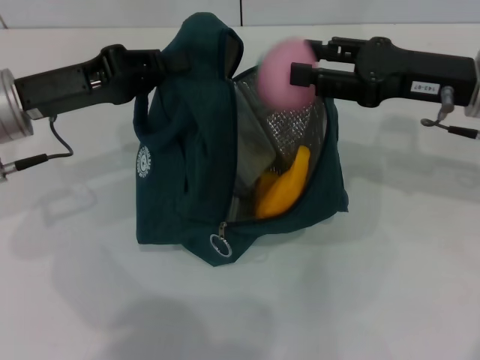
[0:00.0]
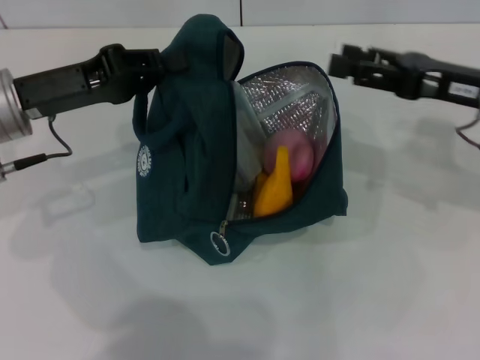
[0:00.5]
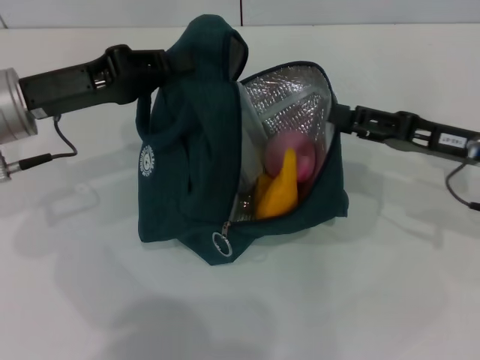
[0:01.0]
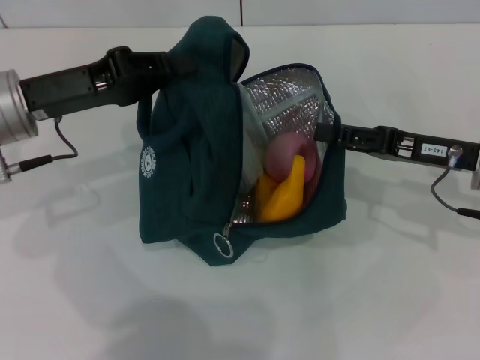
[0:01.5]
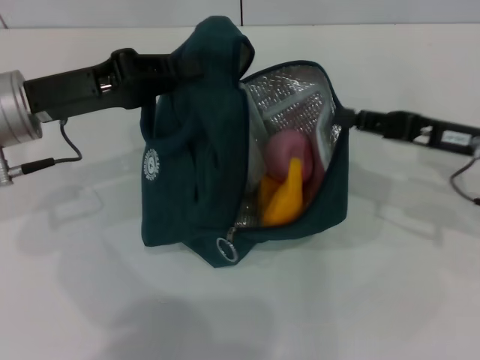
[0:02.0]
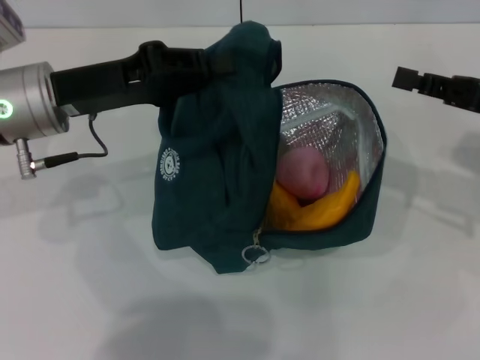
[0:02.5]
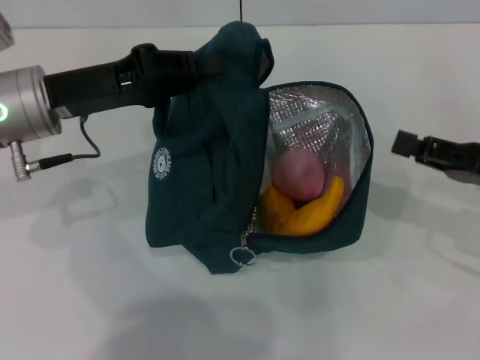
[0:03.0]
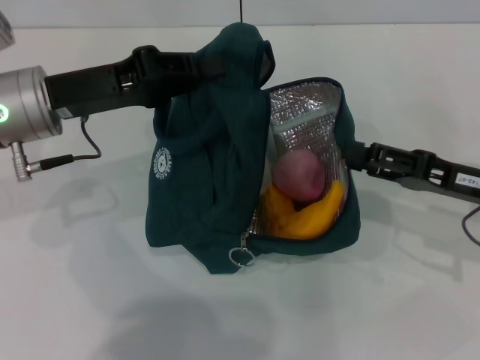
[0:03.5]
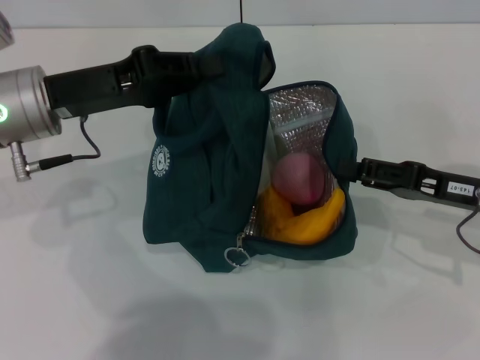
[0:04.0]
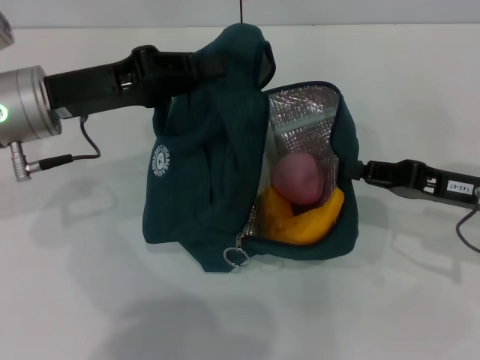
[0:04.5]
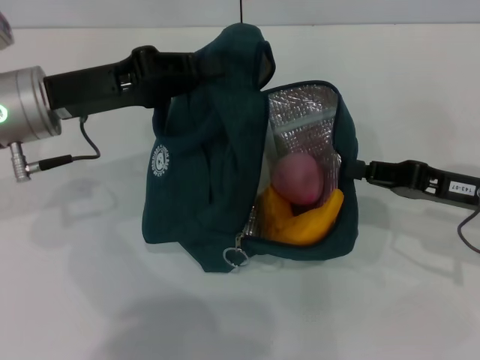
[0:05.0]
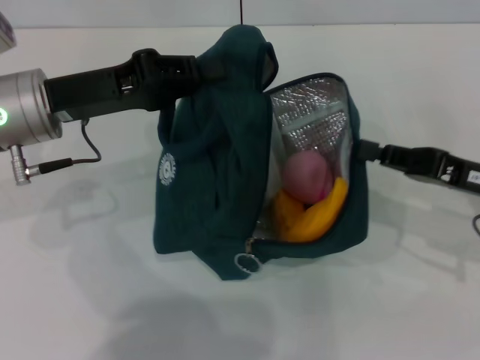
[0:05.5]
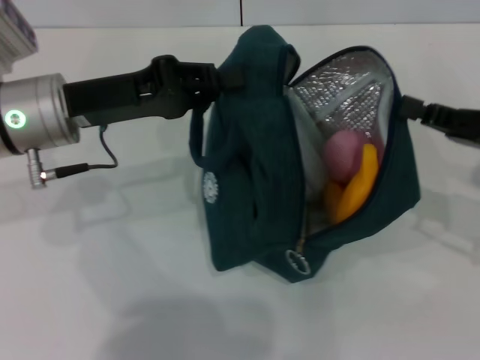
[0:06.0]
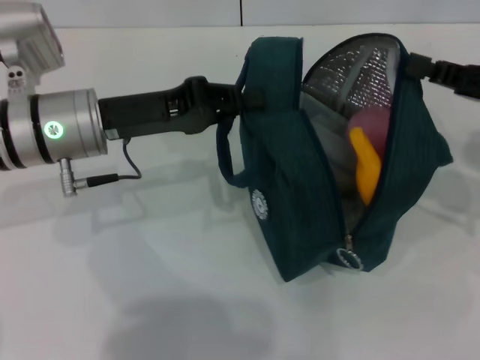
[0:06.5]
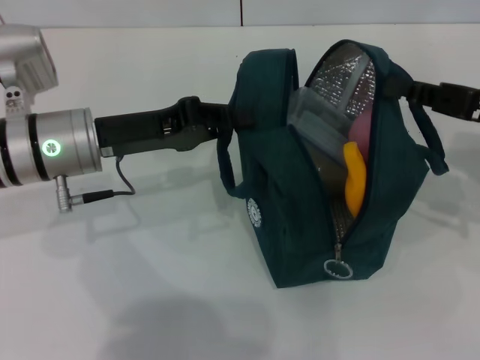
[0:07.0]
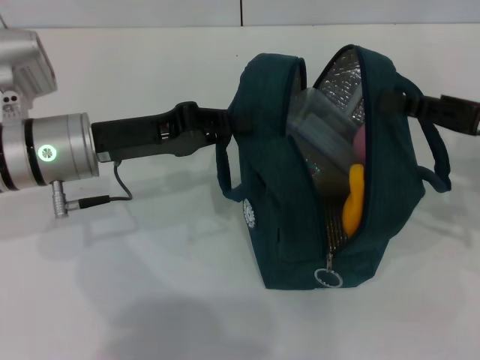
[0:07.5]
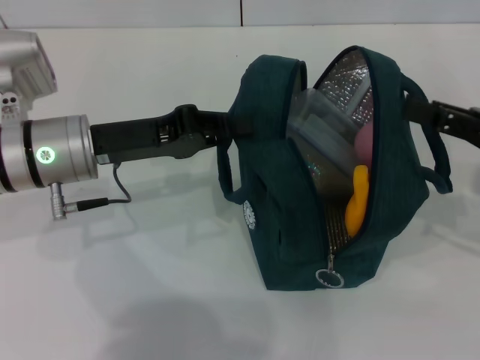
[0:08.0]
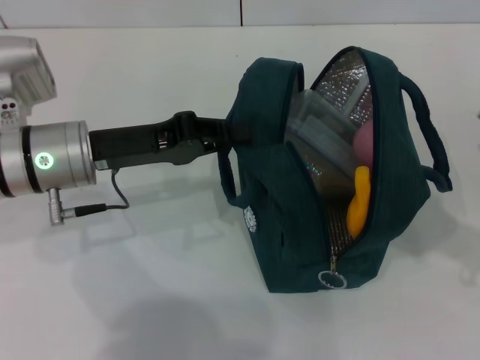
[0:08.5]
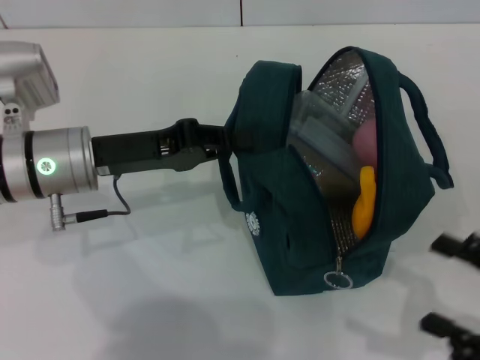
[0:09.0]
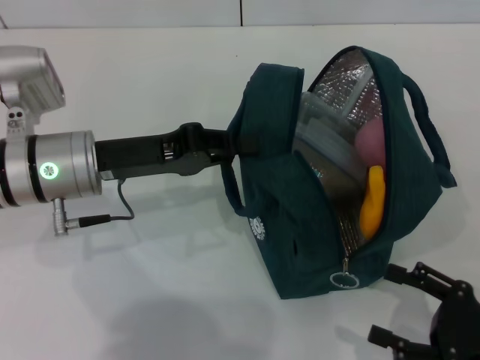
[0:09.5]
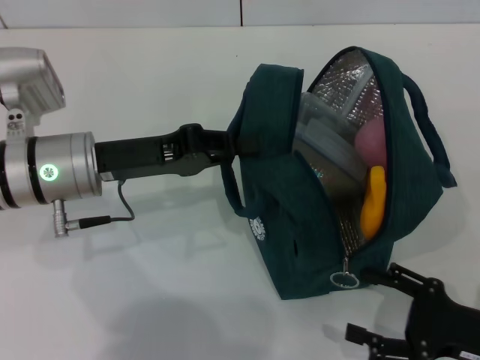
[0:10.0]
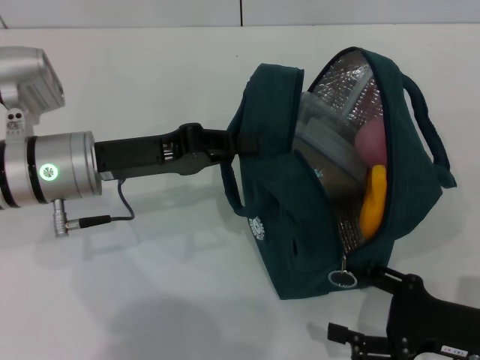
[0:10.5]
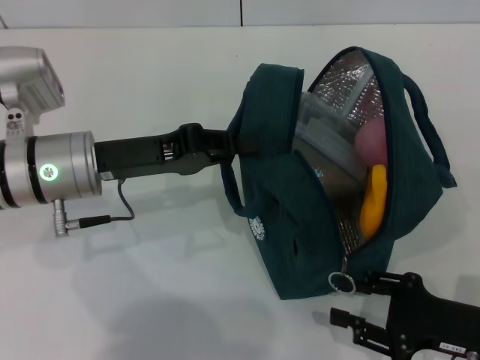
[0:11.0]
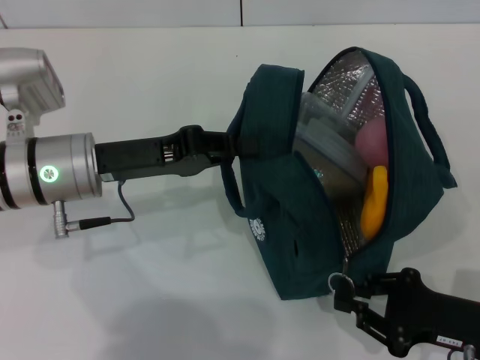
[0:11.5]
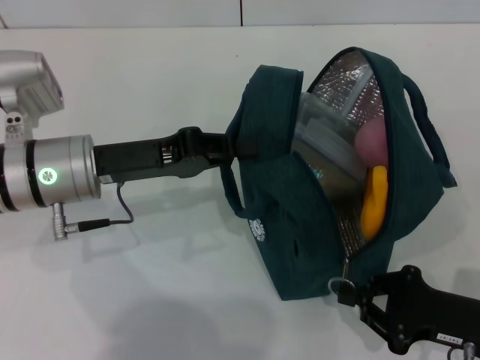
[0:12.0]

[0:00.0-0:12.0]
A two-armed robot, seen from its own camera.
Step, 0:00.5 to 0:08.0: Zip up the lunch bag with your right hand.
0:00.0 to 0:02.0: The right gripper ends up some 5 cm from where it was, and opens, then closes again.
0:02.0 to 0:04.0: The right gripper opens.
0:04.0 to 0:06.0: The right gripper closes up.
0:06.0 to 0:08.0: The right gripper opens up.
0:08.0 to 0:10.0: The right gripper is displaced downward and backward by approximately 15 cm, and opens up.
0:10.0 to 0:12.0: The right gripper closes.

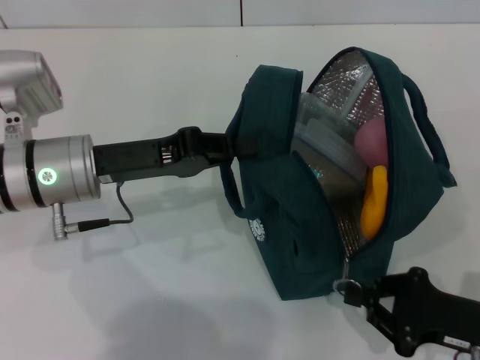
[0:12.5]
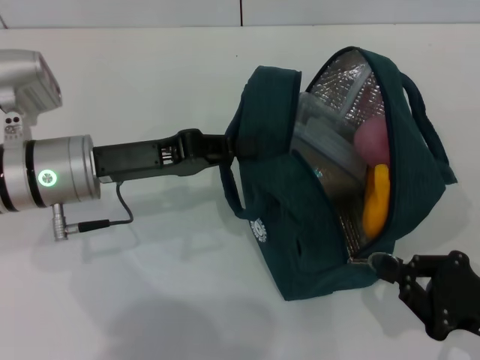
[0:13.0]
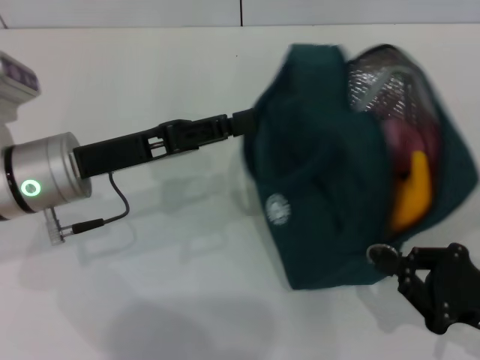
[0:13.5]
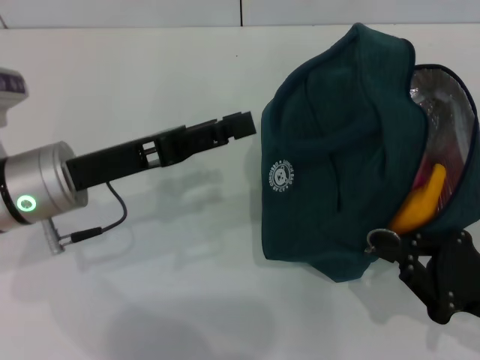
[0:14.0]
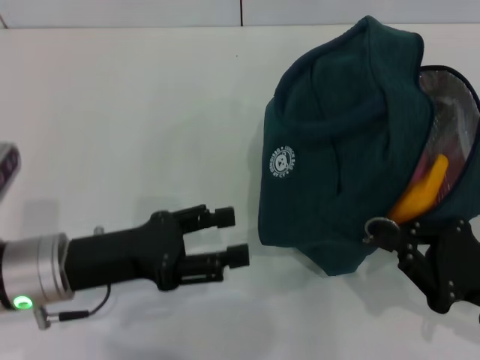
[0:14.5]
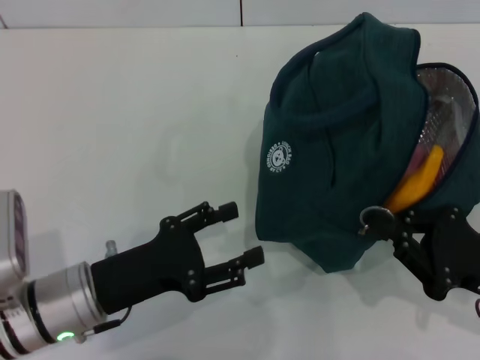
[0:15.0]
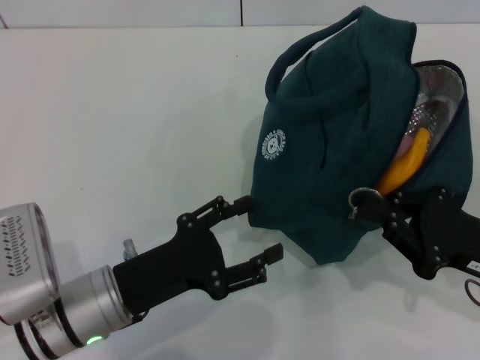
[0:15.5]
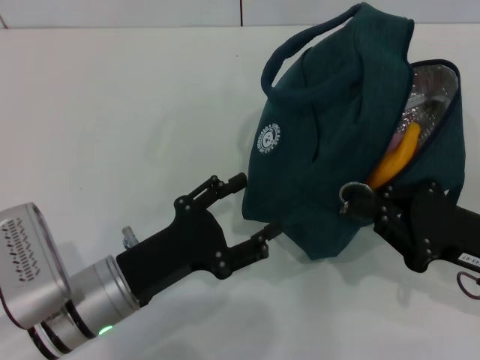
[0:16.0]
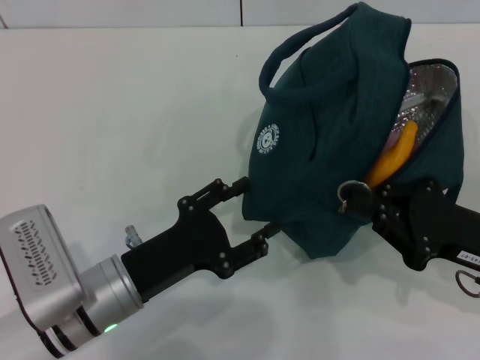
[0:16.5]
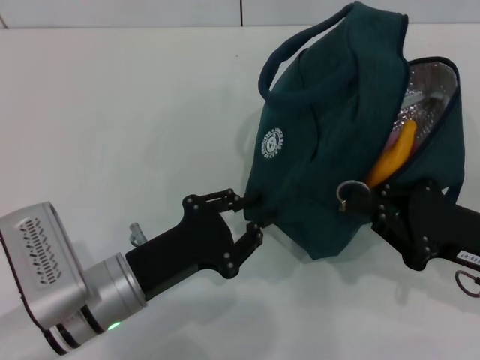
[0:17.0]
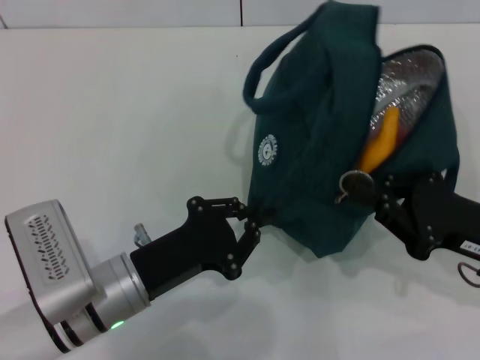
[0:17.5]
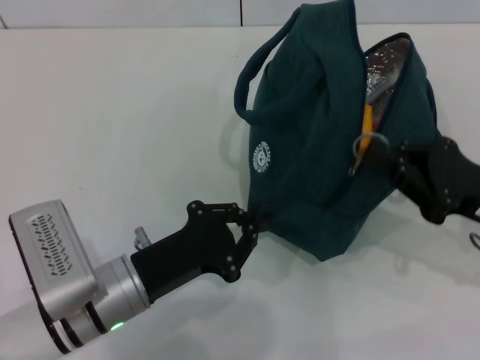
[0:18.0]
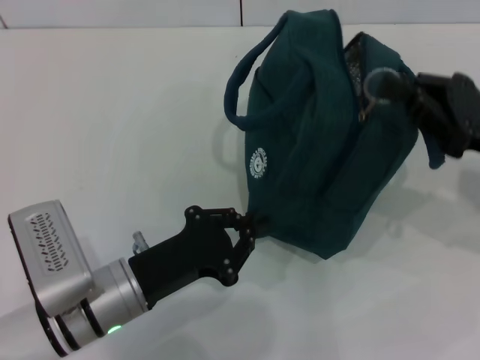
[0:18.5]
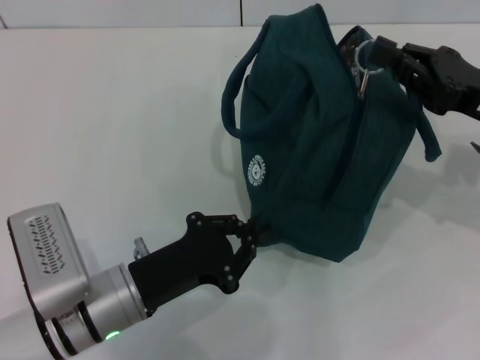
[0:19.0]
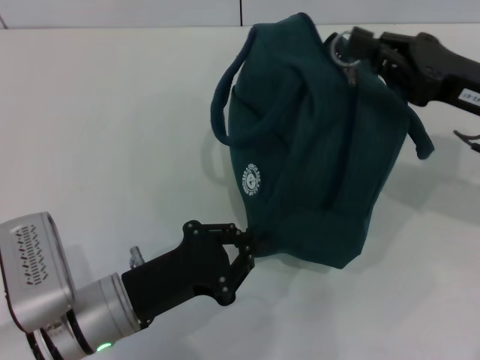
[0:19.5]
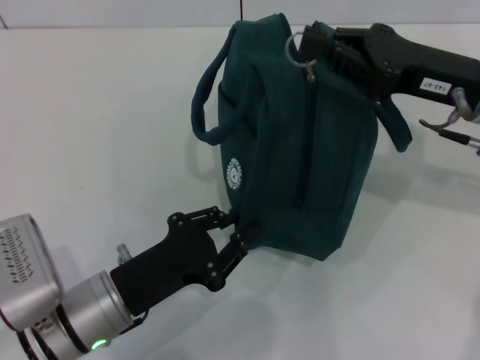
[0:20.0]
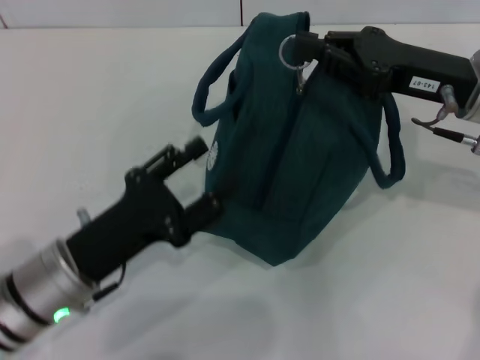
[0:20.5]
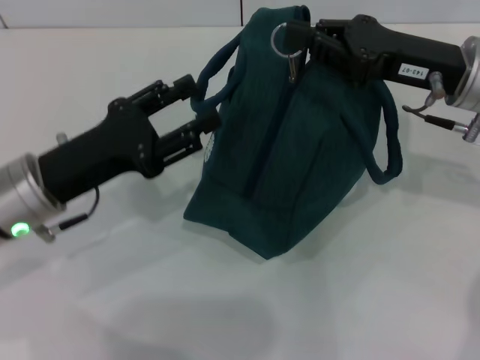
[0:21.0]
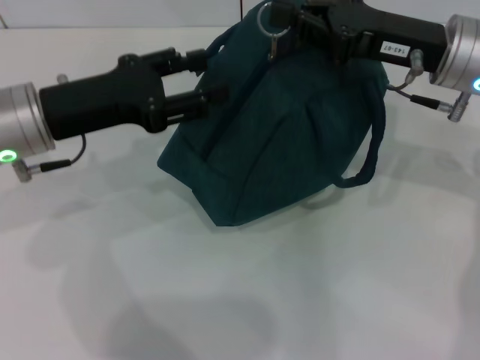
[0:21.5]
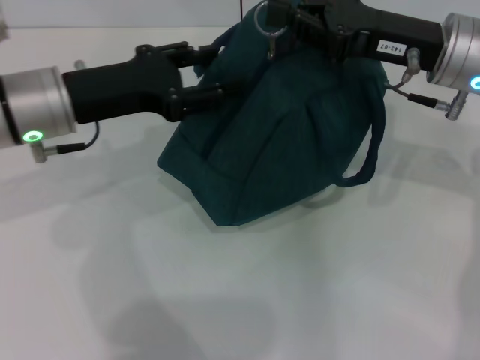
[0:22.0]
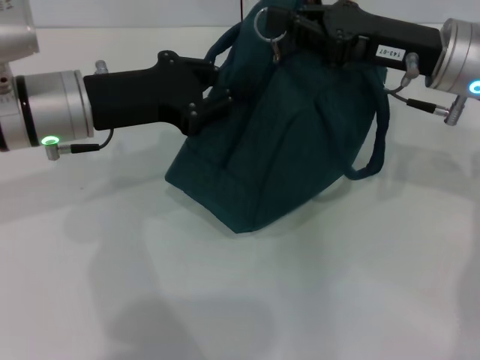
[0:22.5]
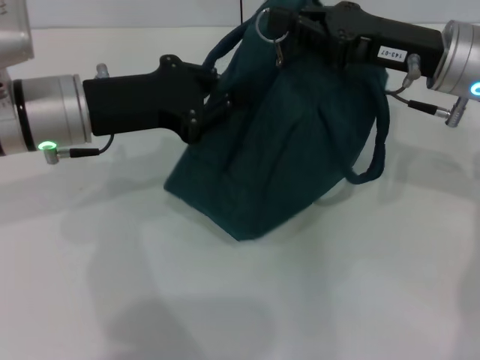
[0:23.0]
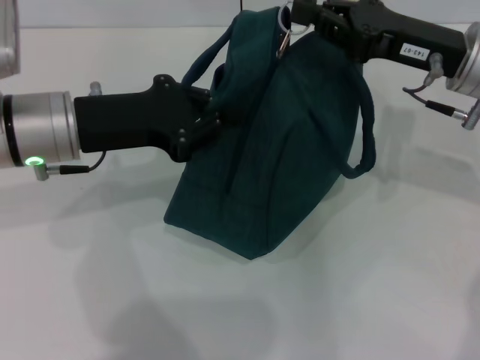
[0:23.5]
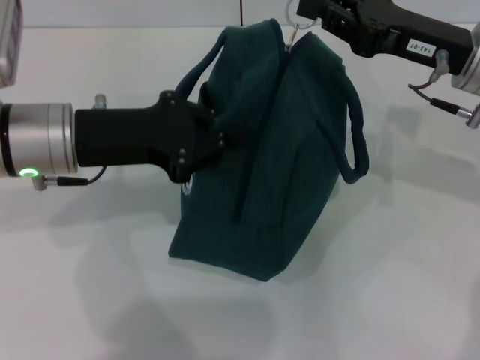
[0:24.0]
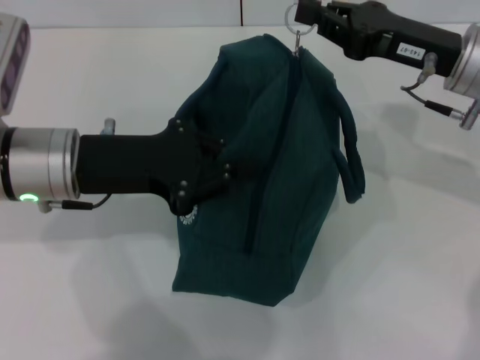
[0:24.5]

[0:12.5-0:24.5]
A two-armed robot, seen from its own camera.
0:12.5 to 0:14.5: The left gripper is displaced backward by approximately 10 cm, and opens.
0:14.5 to 0:16.5: The left gripper heads to the right, covering approximately 5 cm.
0:16.5 to 0:18.5: The left gripper closes. Meanwhile the right gripper moves upward and forward, roughly 10 cm.
0:18.5 to 0:20.5: The left gripper opens, while the right gripper heads forward and to the left, covering roughly 10 cm.
0:20.5 to 0:22.5: The left gripper shifts roughly 15 cm forward and upward.
0:22.5 to 0:24.5: The left gripper closes its fingers.

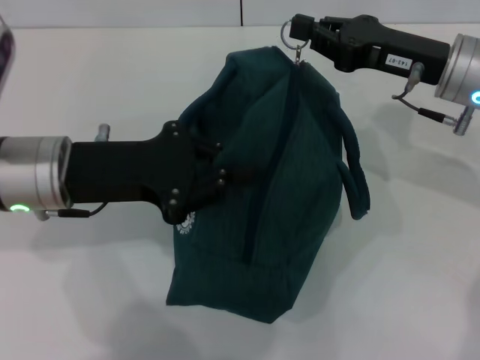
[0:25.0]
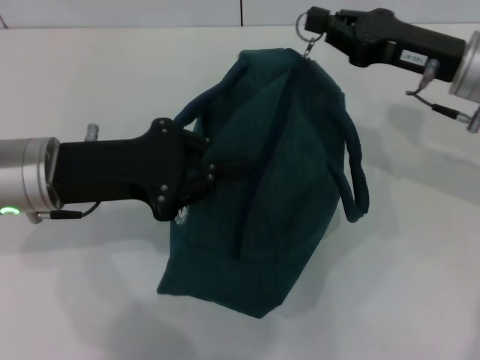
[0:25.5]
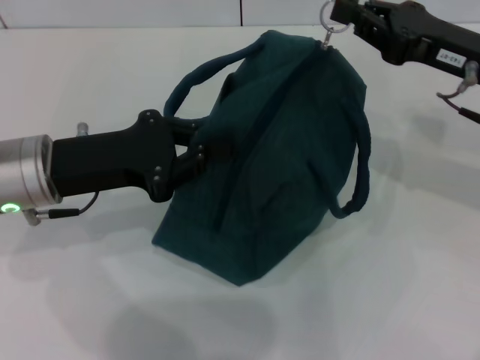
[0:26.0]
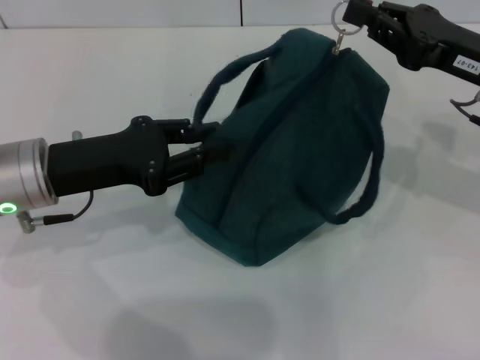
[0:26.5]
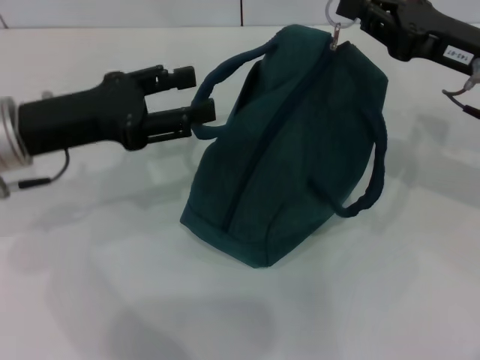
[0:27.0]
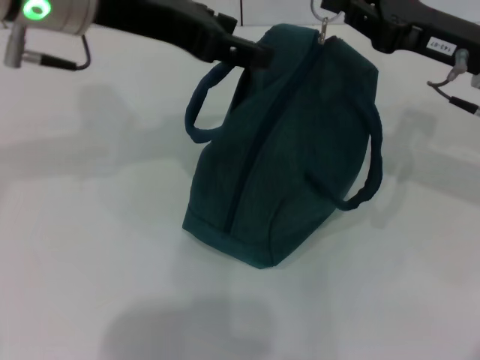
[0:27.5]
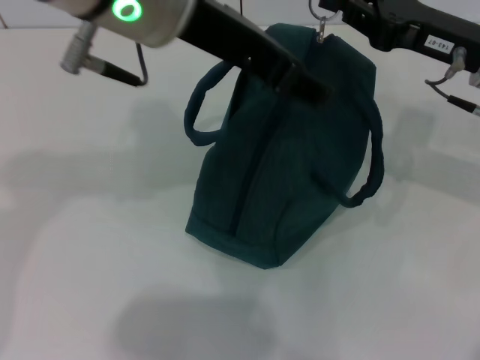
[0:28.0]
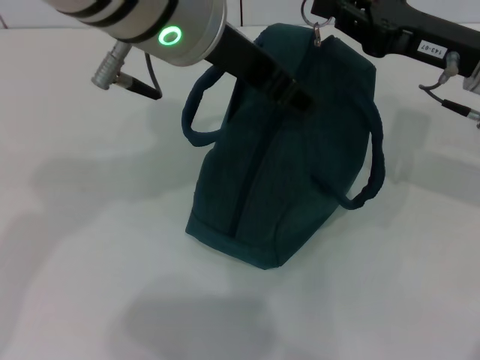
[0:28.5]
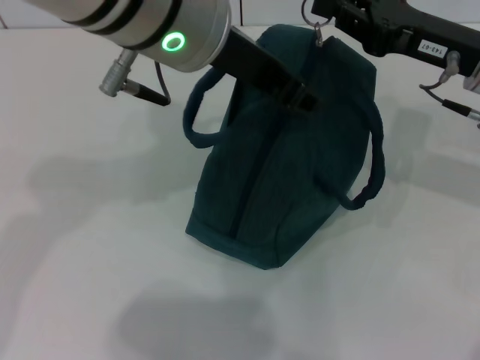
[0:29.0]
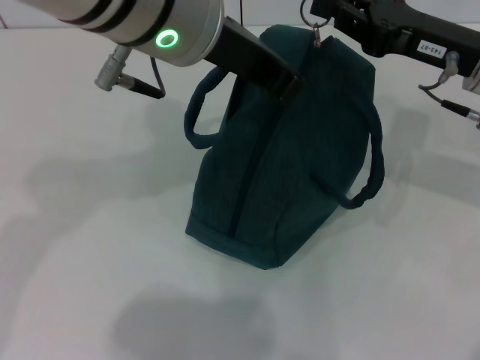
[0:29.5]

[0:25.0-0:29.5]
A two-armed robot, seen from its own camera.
0:25.0 to 0:27.0: The left gripper opens.
0:27.0 to 0:29.5: The left gripper heads to the right and upward, covering roughly 20 cm, and closes its fingers.
